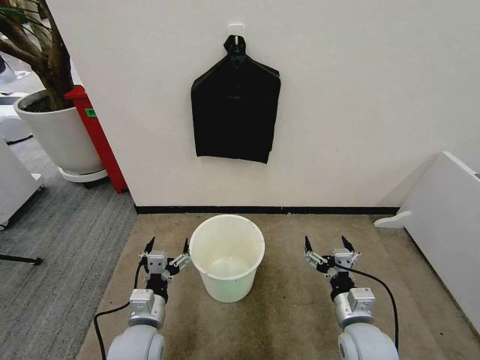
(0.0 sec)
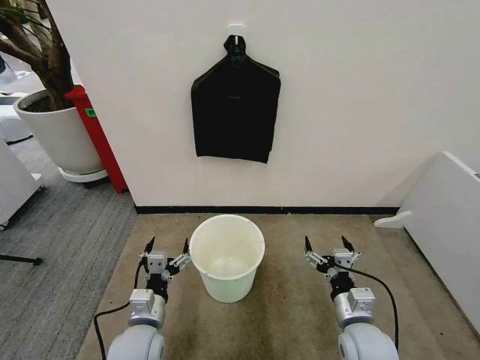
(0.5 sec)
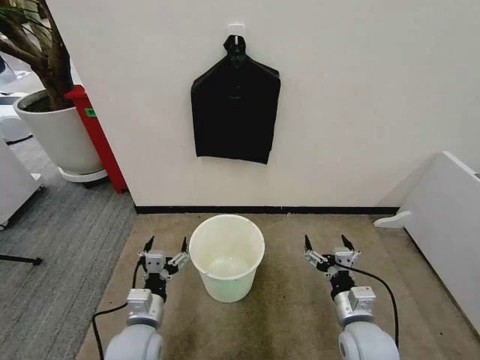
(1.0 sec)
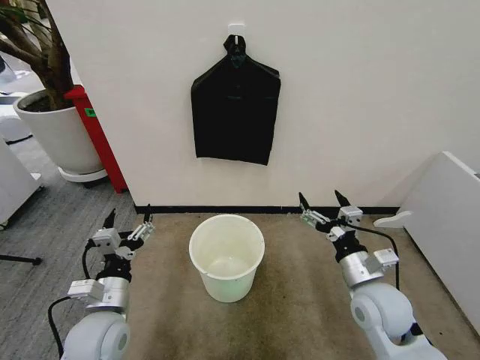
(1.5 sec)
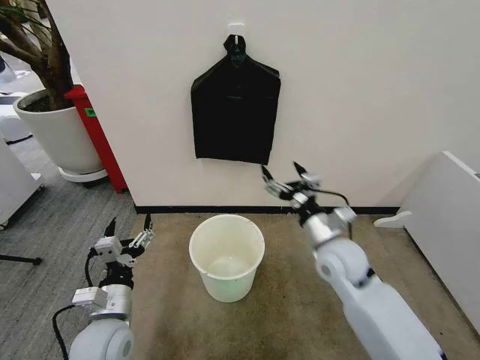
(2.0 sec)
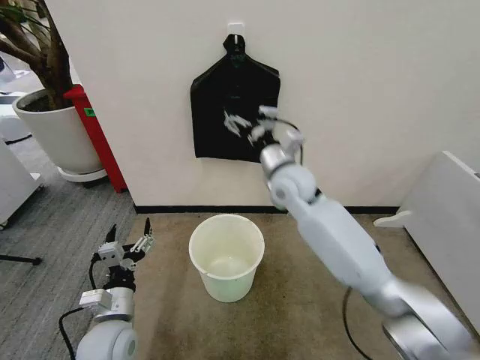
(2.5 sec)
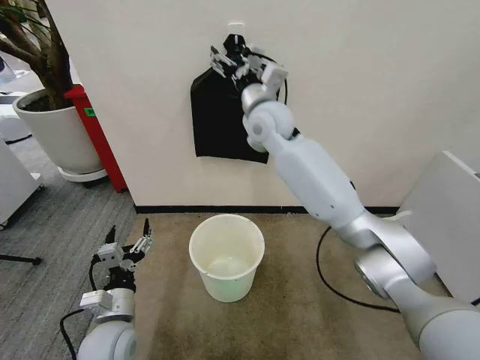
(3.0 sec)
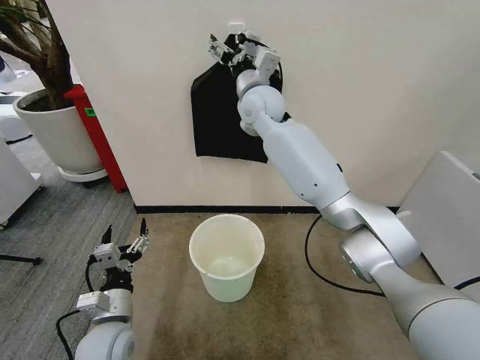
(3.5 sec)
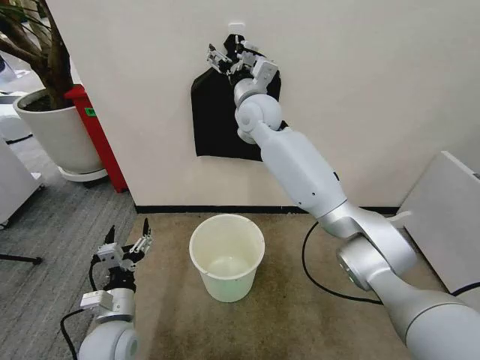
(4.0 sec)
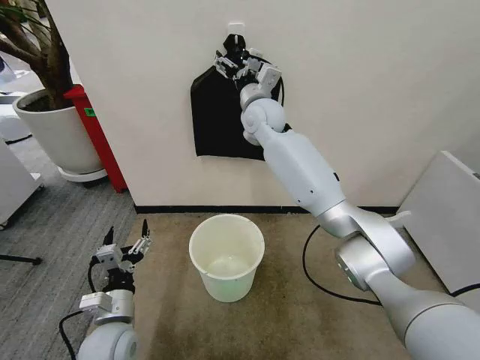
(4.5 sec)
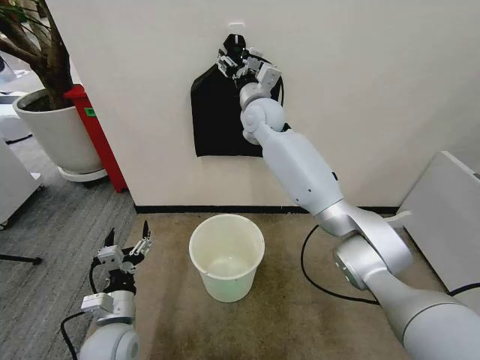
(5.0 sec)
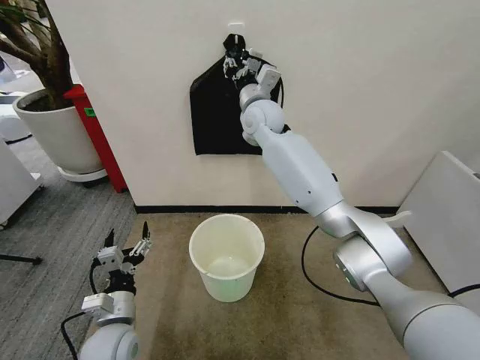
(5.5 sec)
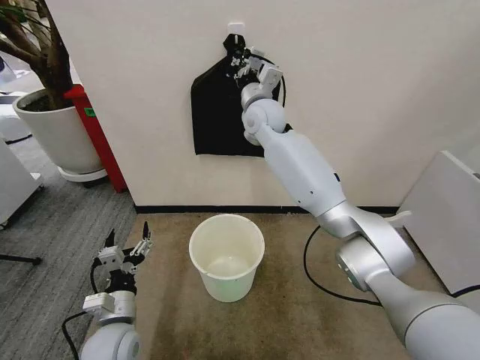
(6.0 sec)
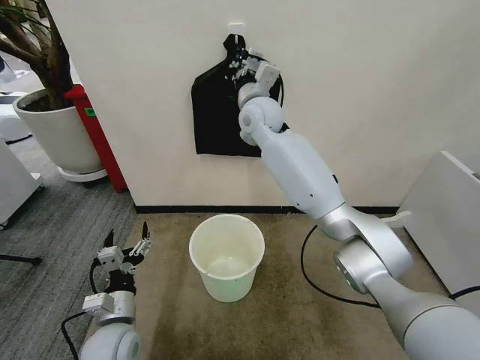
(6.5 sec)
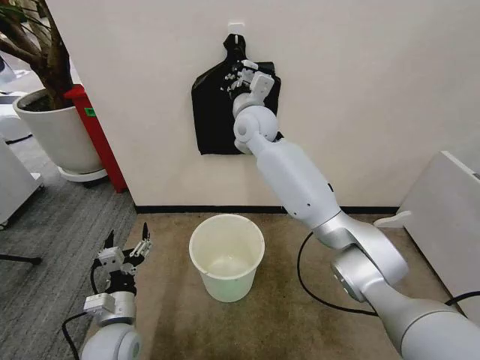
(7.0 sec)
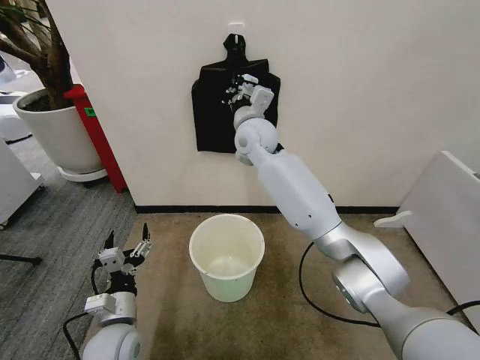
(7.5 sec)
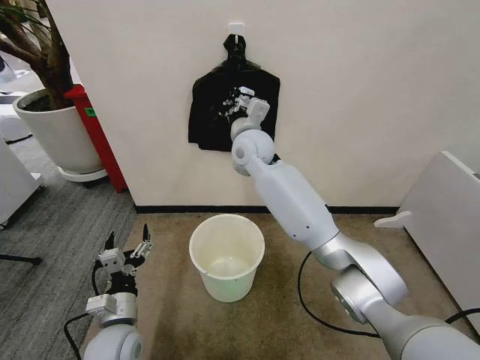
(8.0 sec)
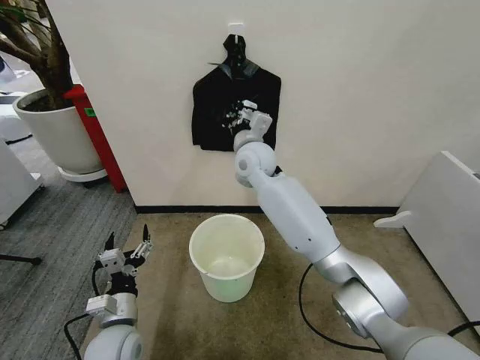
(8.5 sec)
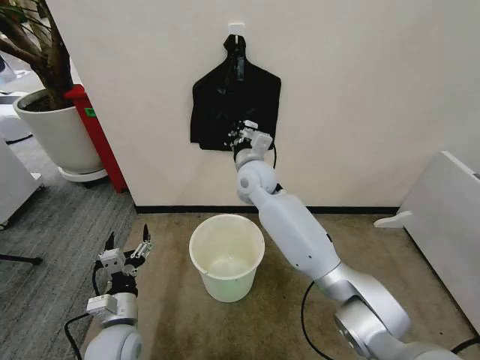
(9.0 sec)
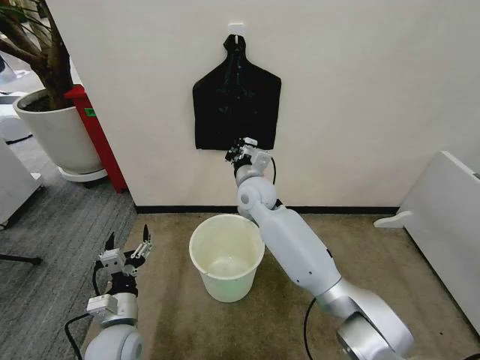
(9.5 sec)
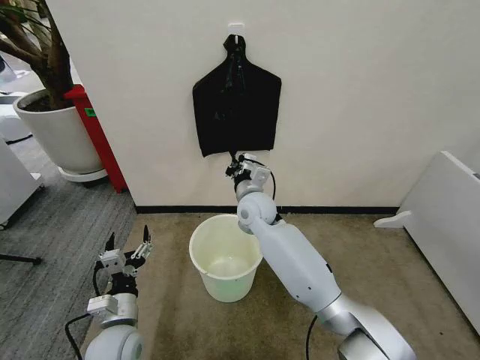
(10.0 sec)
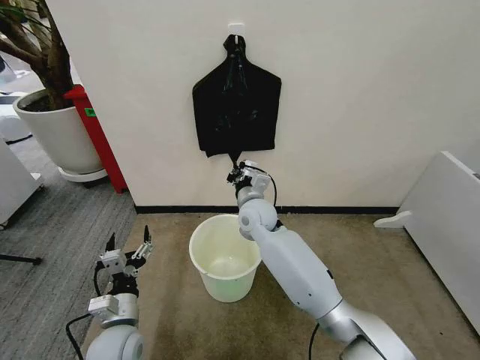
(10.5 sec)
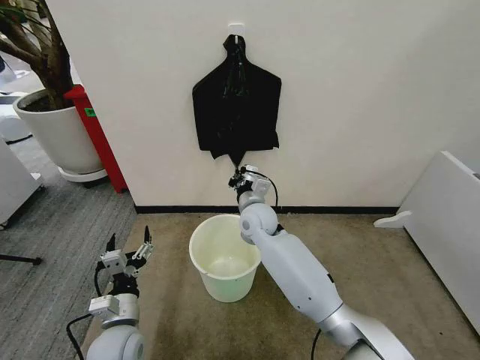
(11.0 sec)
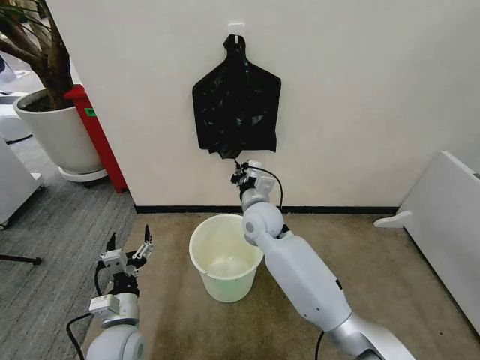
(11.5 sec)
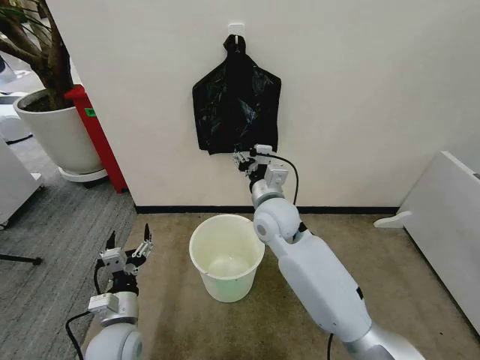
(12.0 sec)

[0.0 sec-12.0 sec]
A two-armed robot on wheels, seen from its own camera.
Task of the whole recording: Place the garbage bag over the trash bin.
2.0 sec to 4.0 sec: The right gripper heads forward, upward and to the left, covering approximately 35 cm.
4.0 sec to 6.0 sec: The right gripper closes.
6.0 sec to 8.0 sec: The right gripper heads backward, covering about 5 cm.
8.0 sec to 10.0 sec: The right gripper goes roughly 15 cm downward and backward.
10.0 sec to 12.0 sec: The right gripper goes approximately 5 cm backward, and opens its fingers.

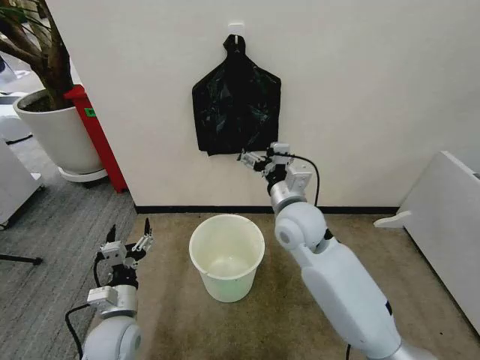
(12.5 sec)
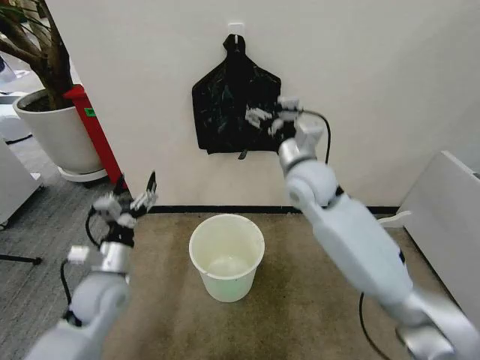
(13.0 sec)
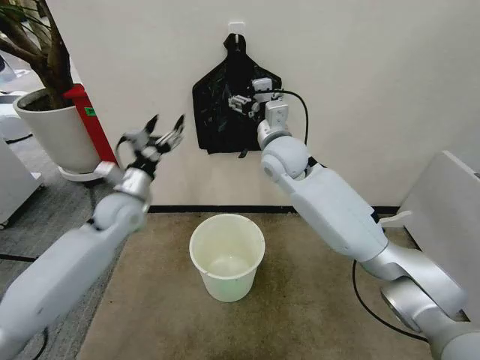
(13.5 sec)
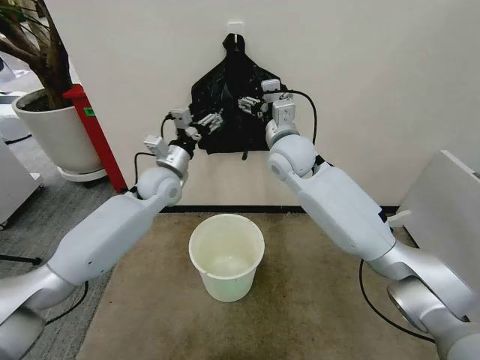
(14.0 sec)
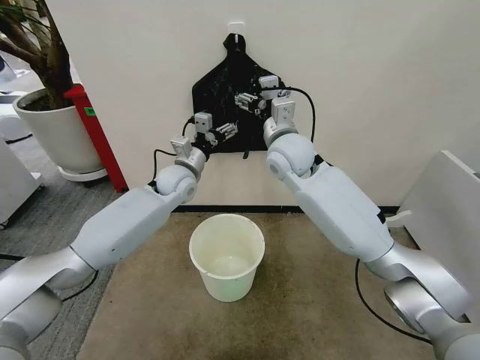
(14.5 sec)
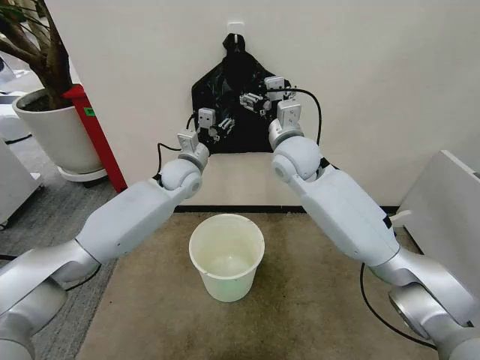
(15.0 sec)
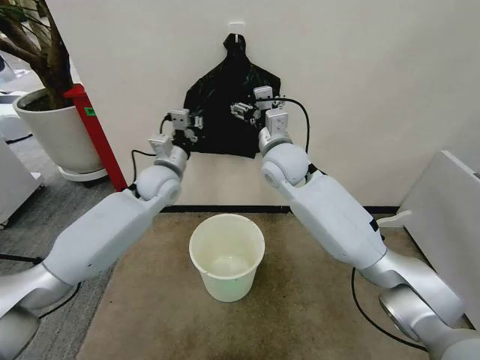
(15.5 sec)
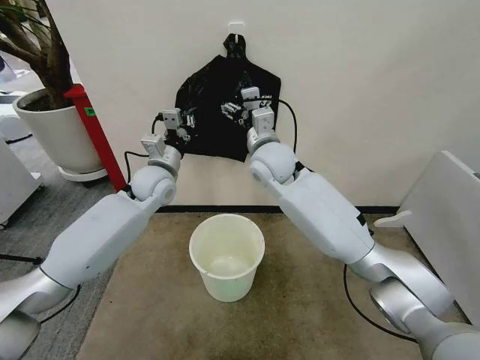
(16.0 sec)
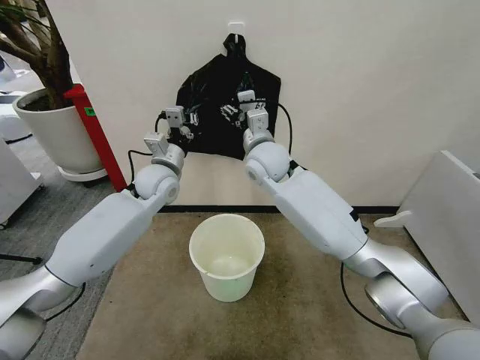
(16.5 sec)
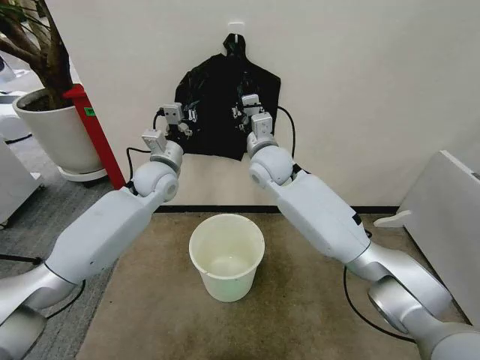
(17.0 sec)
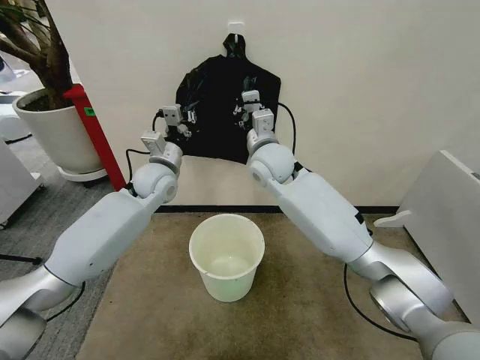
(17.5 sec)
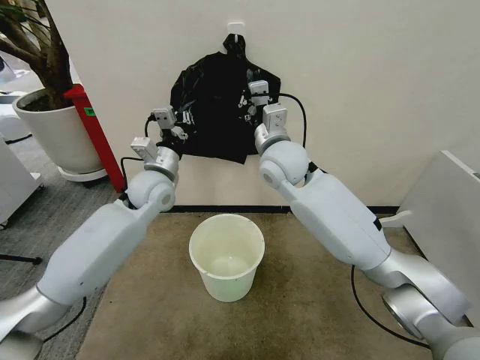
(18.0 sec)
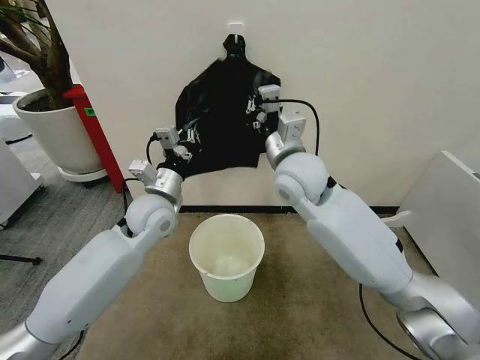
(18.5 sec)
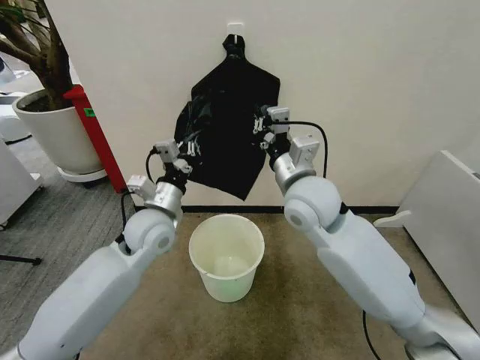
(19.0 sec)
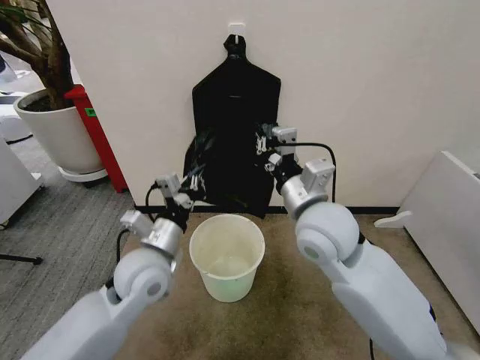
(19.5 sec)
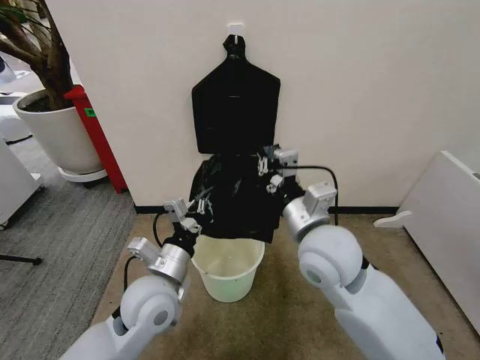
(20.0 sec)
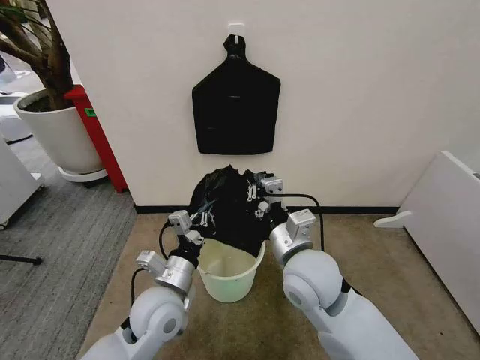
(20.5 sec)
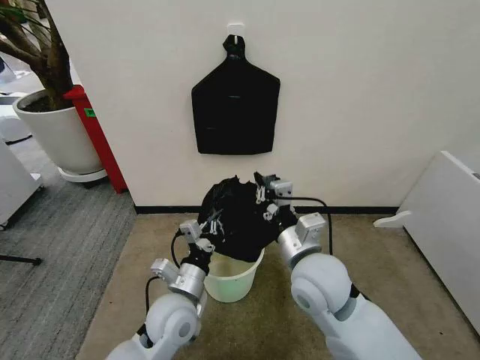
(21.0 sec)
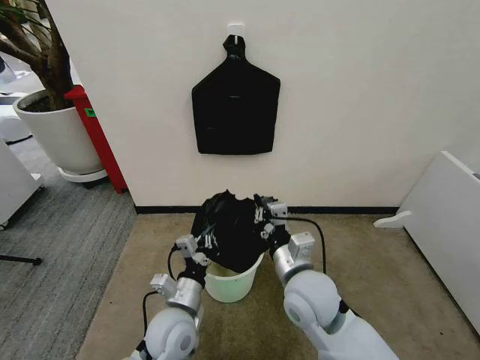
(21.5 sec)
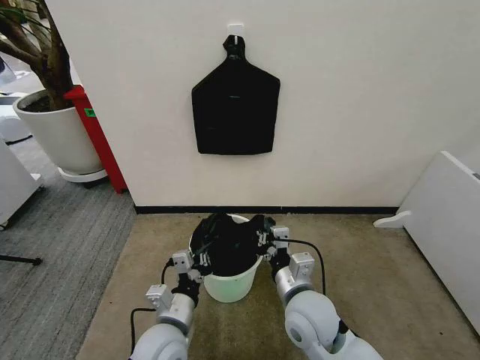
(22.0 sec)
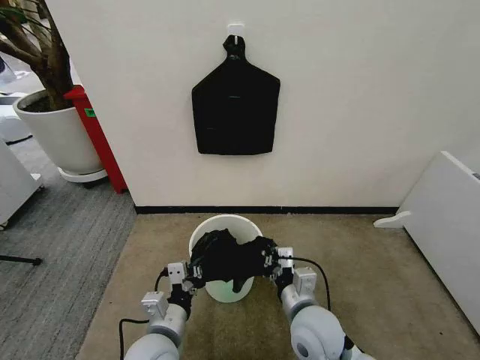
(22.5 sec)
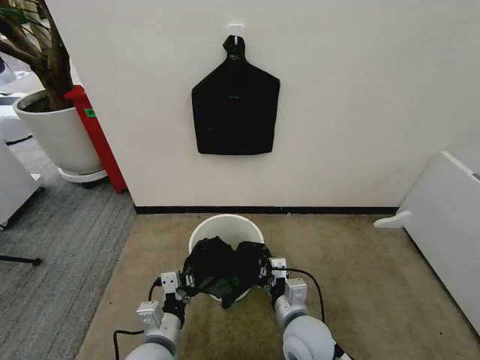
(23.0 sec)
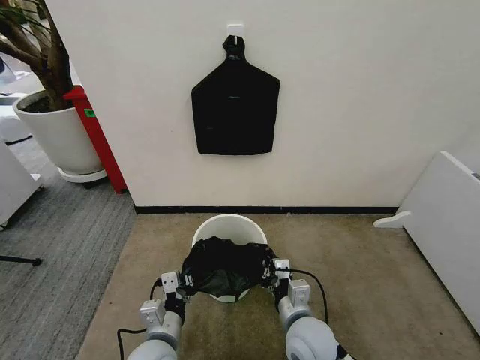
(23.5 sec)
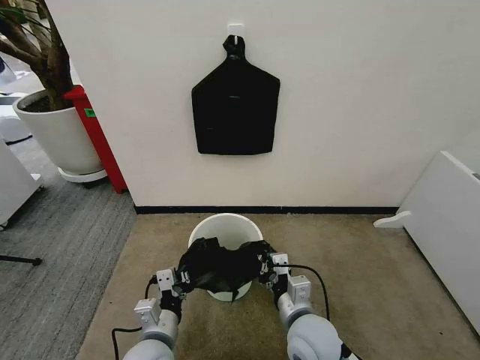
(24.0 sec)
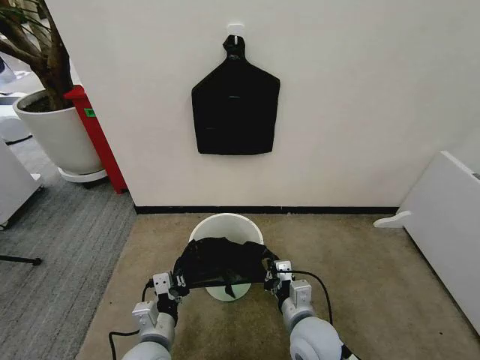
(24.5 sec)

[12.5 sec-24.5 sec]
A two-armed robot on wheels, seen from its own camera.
Task of the whole recording: Place the garbage bag over the trash bin.
12.5 sec to 14.5 sec: The right gripper travels forward and upward by some 15 cm; the left gripper heads forward and upward, covering some 35 cm.
14.5 sec to 16.5 sec: The left gripper shifts by about 5 cm, and closes up; the right gripper shifts by some 5 cm.
16.5 sec to 18.5 sec: The two grippers go roughly 10 cm backward. The right gripper closes up.
18.5 sec to 20.5 sec: Both grippers move backward and downward, roughly 20 cm.
20.5 sec to 22.5 sec: The right gripper moves downward and backward, about 15 cm; the left gripper is displaced backward by about 5 cm.
22.5 sec to 24.5 sec: The grippers stay close to where they were, moving slightly.

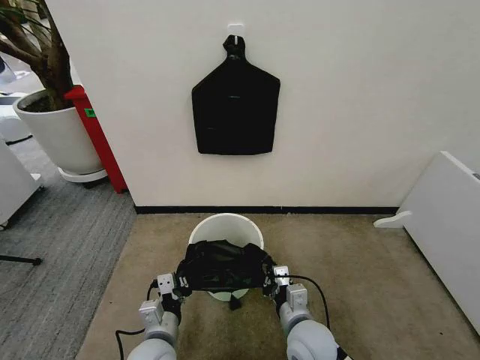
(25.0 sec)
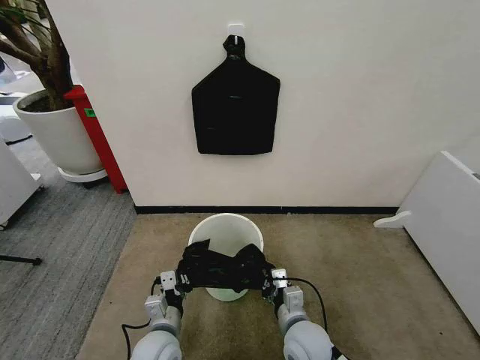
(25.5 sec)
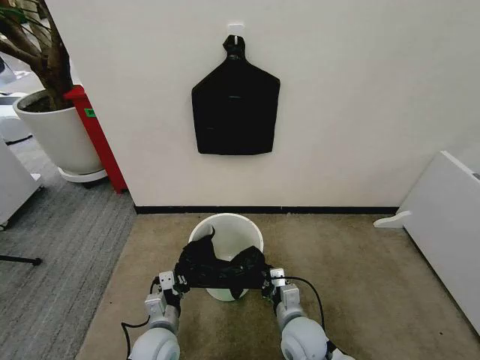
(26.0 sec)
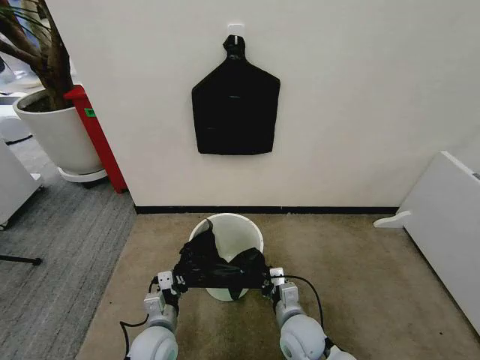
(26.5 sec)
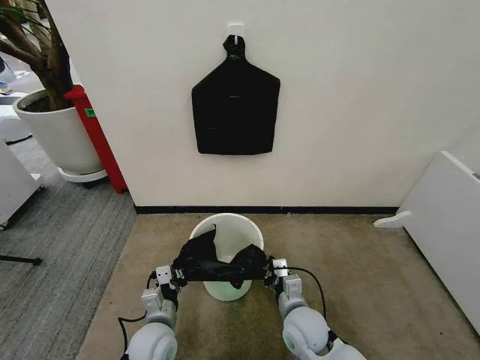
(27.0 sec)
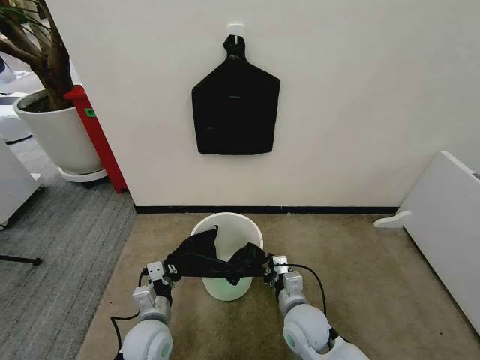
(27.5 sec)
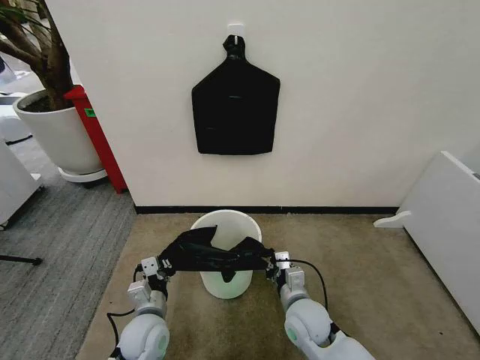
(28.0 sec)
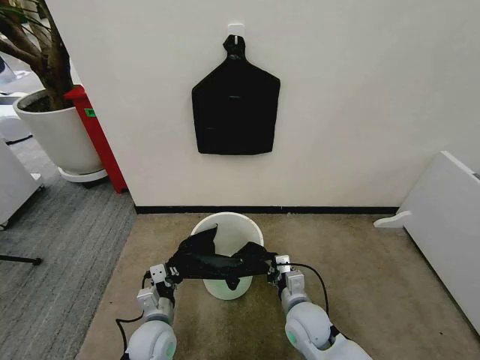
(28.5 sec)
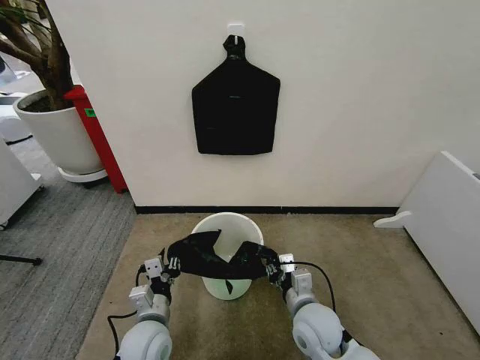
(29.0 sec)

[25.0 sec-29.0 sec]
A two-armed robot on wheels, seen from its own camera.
Task of the whole recording: Place the garbage bag over the trash bin.
25.0 sec to 27.0 sec: The left gripper shifts by roughly 5 cm.
27.0 sec to 29.0 sec: The right gripper opens its fingers, while the left gripper opens up.
